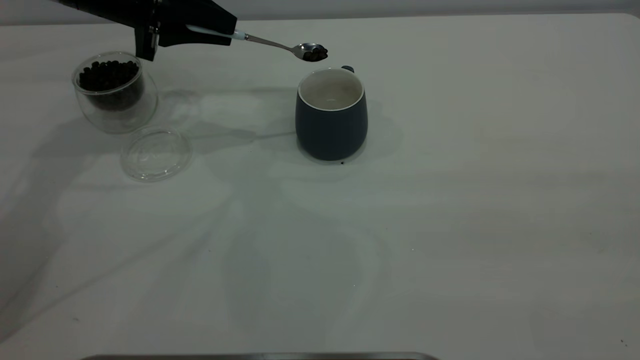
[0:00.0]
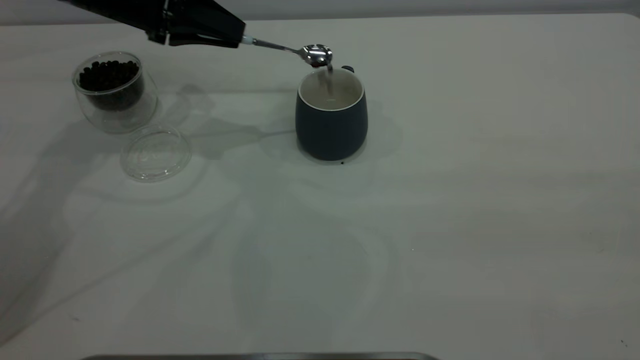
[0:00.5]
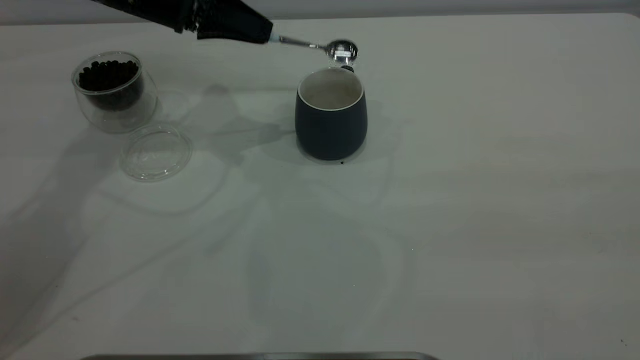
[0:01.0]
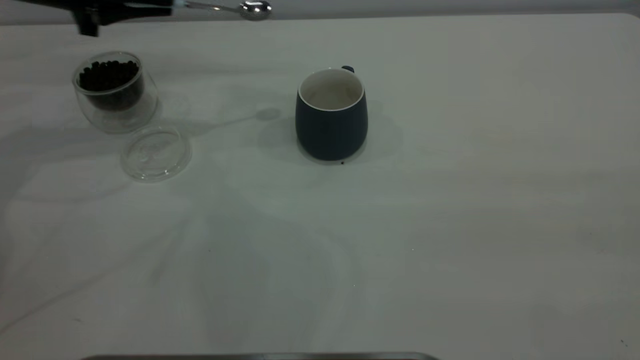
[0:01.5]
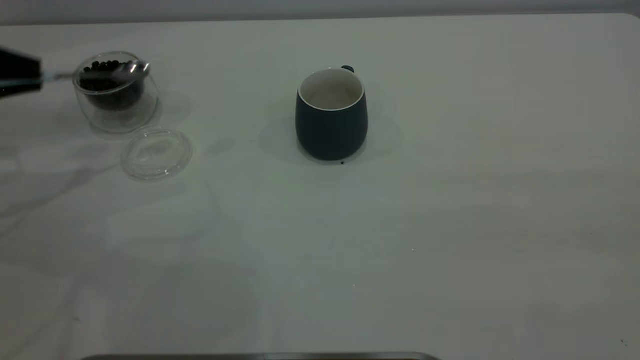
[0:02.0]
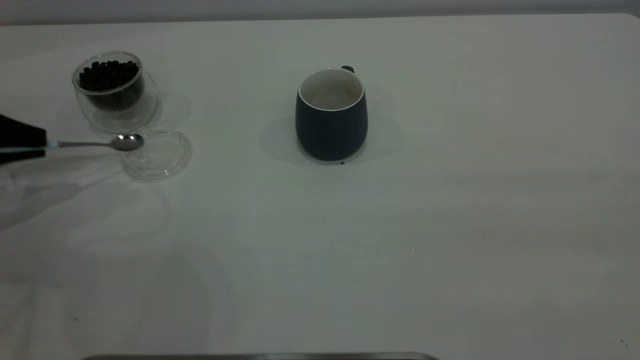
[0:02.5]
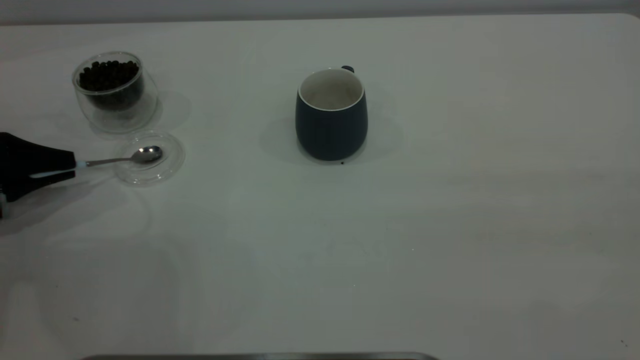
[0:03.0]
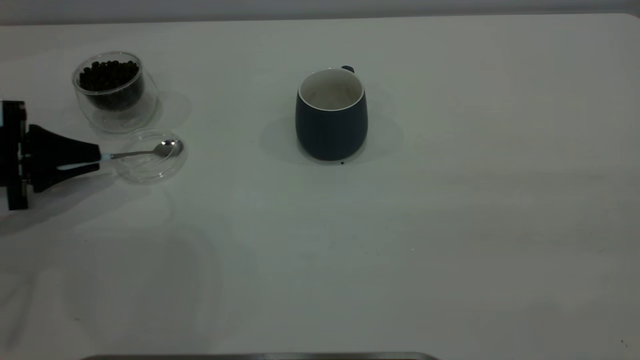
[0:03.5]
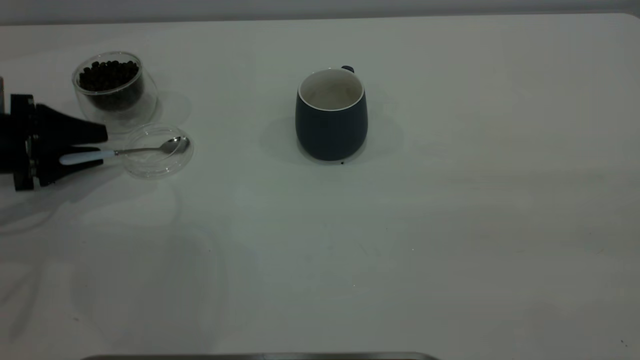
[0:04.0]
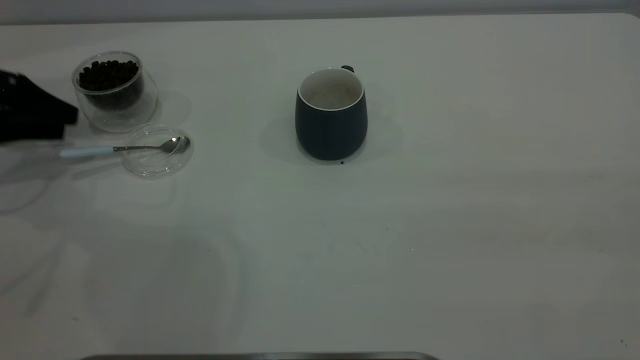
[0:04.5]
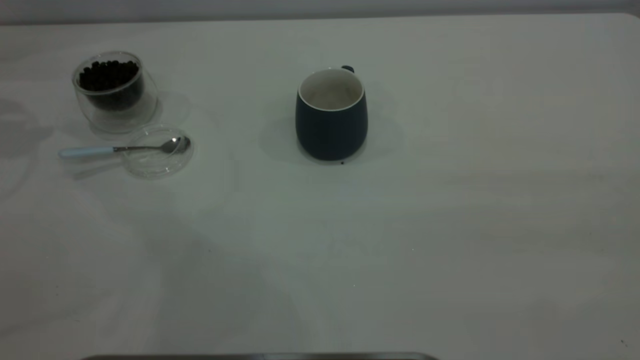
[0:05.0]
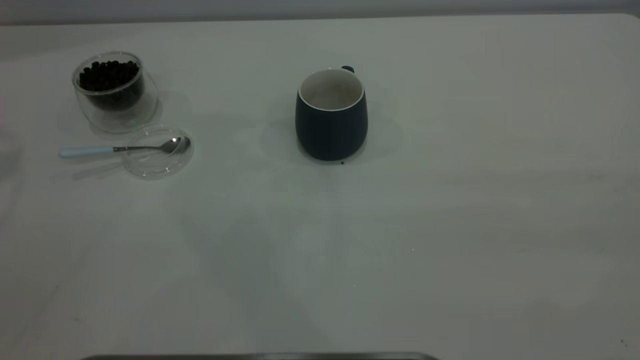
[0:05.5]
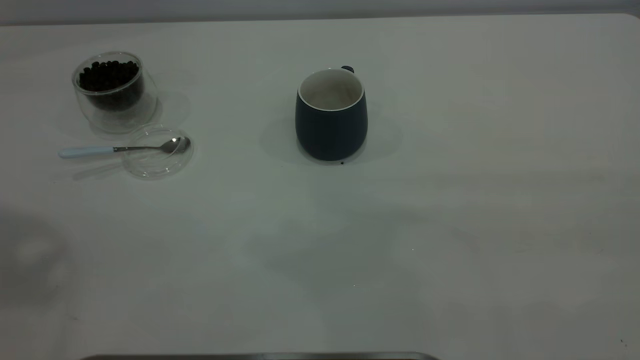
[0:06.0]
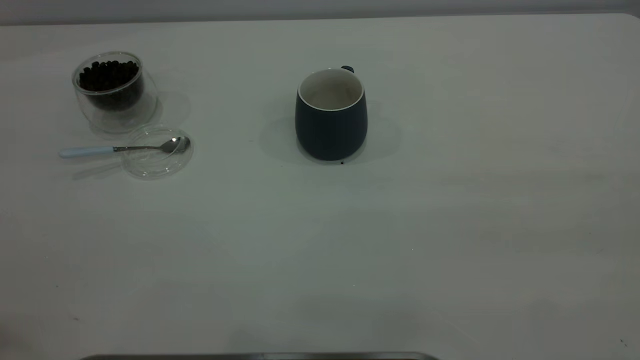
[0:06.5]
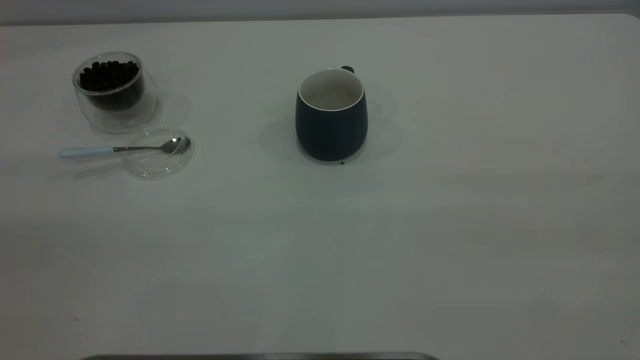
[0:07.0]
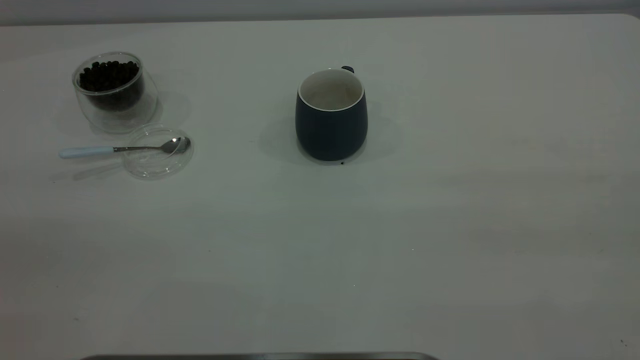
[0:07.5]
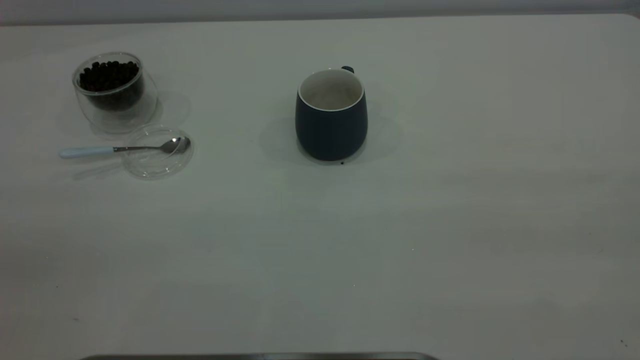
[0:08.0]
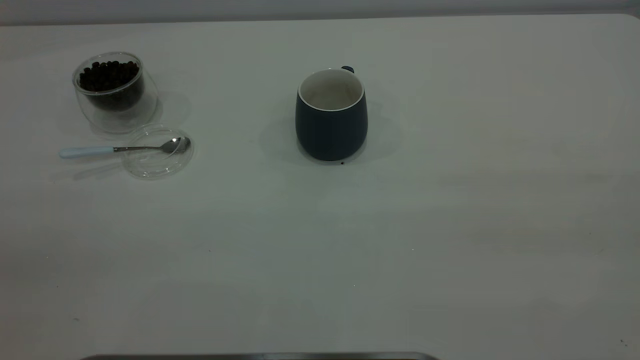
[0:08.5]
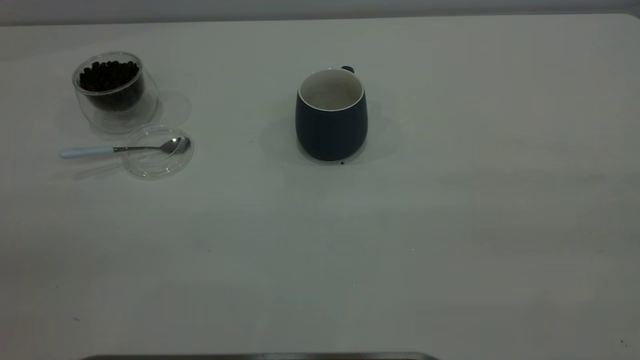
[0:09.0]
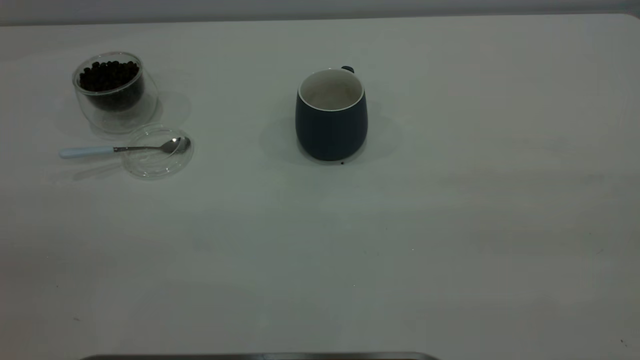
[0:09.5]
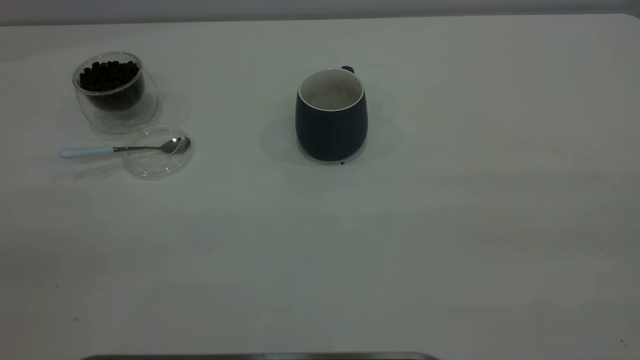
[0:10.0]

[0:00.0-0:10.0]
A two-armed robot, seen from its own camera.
Task of the whole recording: the right gripper place the grey cup in the center of the table, the left gripper take the blue spoon from the cup lid and scoop out the coffee beans from the coffee cup and put them into the grey cup, the left gripper put the spoon back into the cup lid.
Step, 0:01.5 to 0:04.5: Place the spoon back in its original place.
0:00.0 to 0:02.0: The left gripper goes approximately 20 cm to the left and backward.
0:02.0 to 0:04.0: The left gripper is displaced downward by approximately 10 cm, and opens its fingers.
0:04.0 to 0:06.0: The left gripper moves upward, about 40 cm.
0:08.0 to 0:10.0: Both grippers stay about where they are.

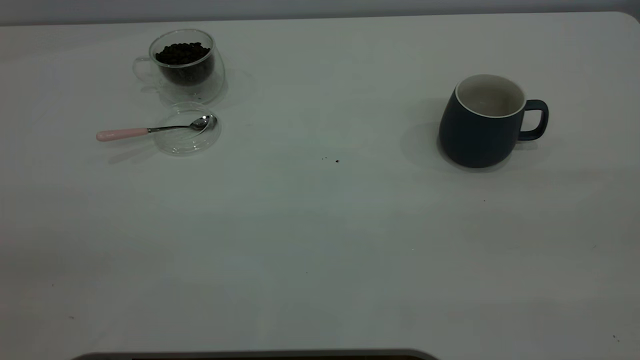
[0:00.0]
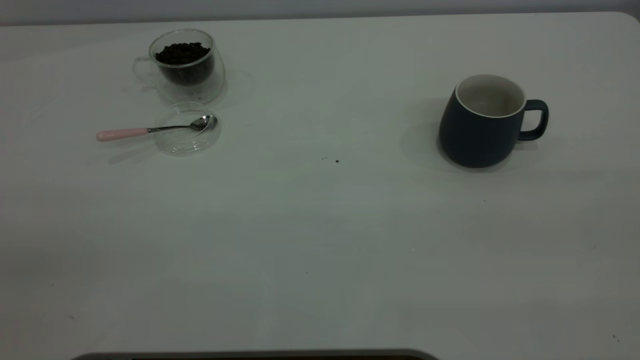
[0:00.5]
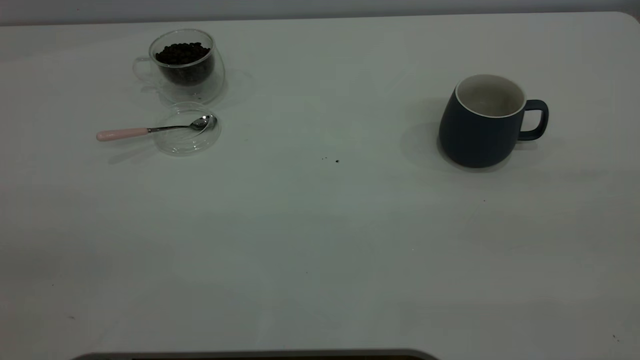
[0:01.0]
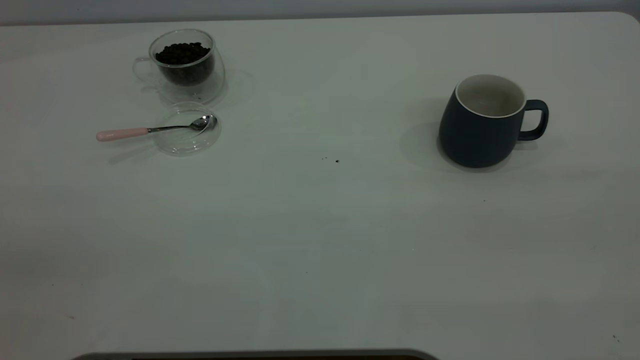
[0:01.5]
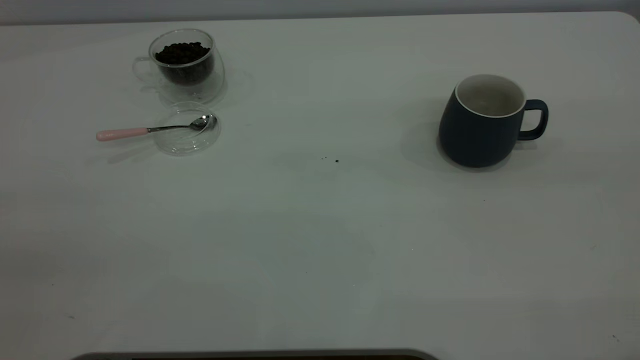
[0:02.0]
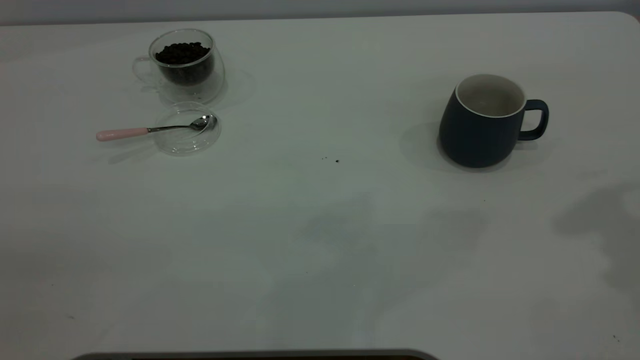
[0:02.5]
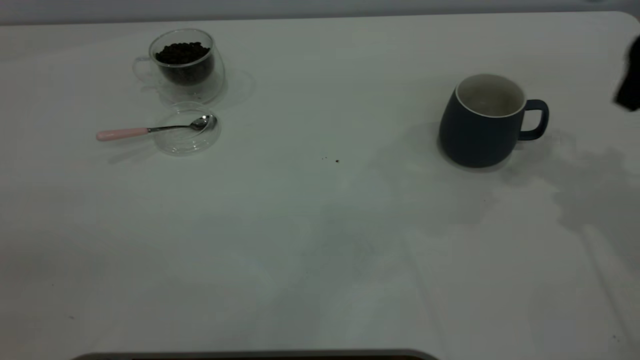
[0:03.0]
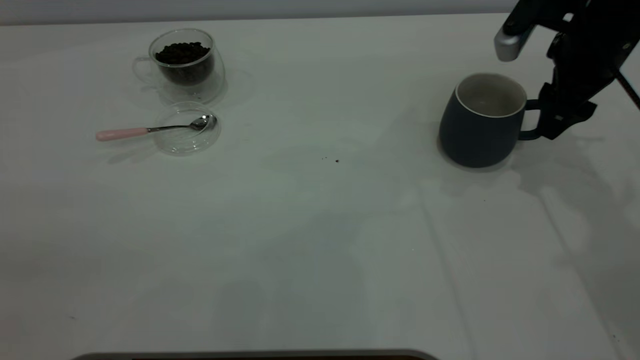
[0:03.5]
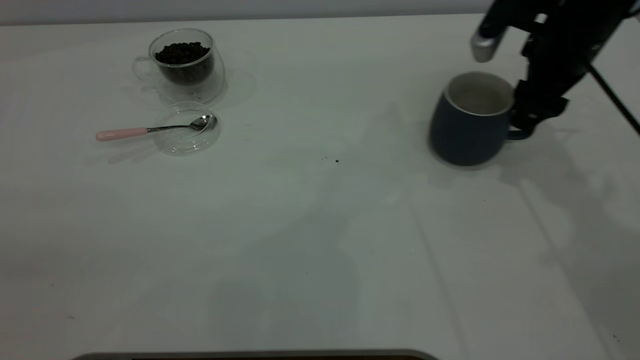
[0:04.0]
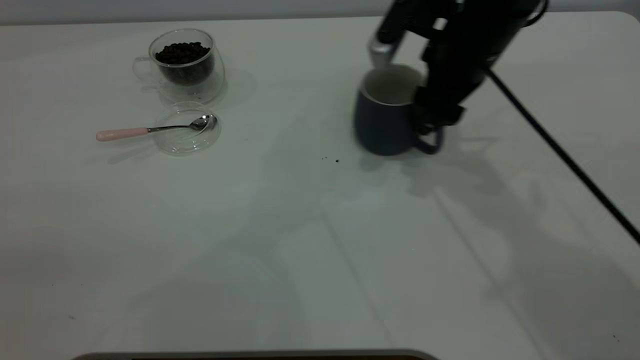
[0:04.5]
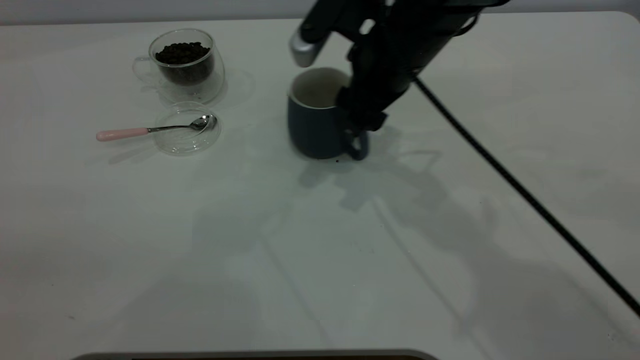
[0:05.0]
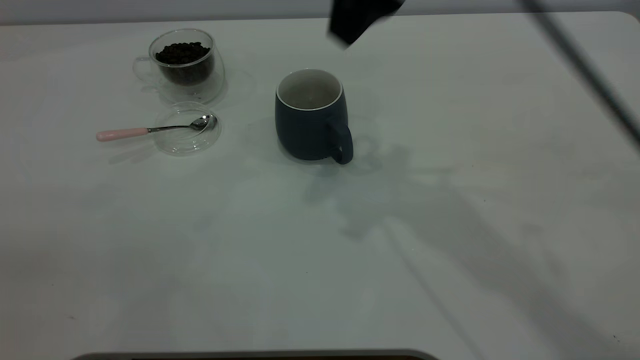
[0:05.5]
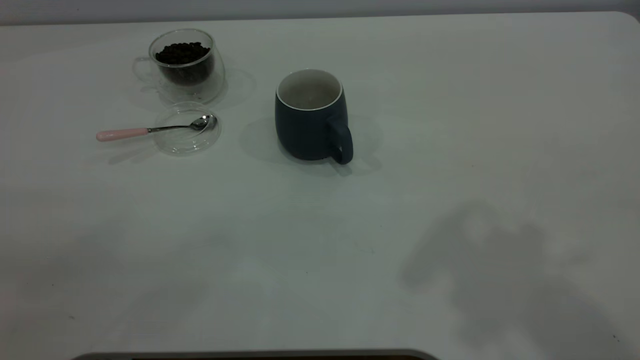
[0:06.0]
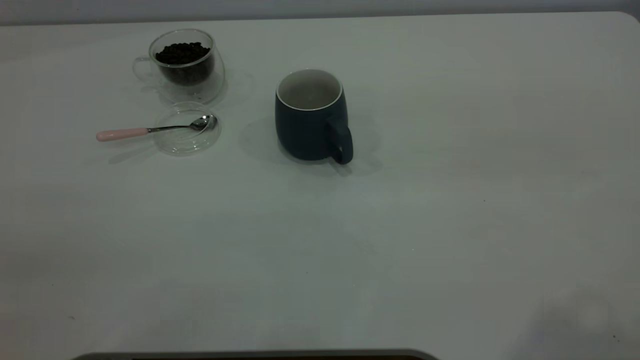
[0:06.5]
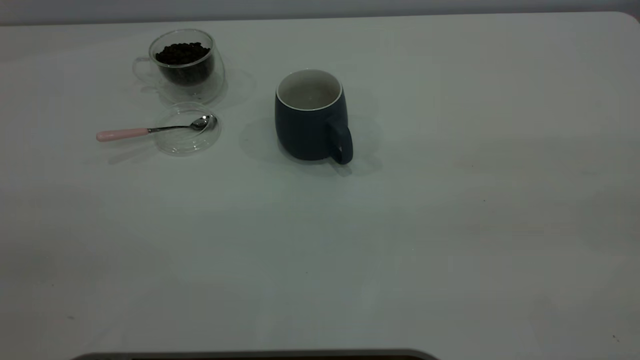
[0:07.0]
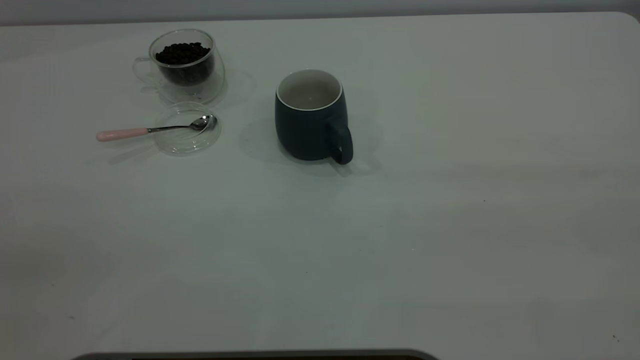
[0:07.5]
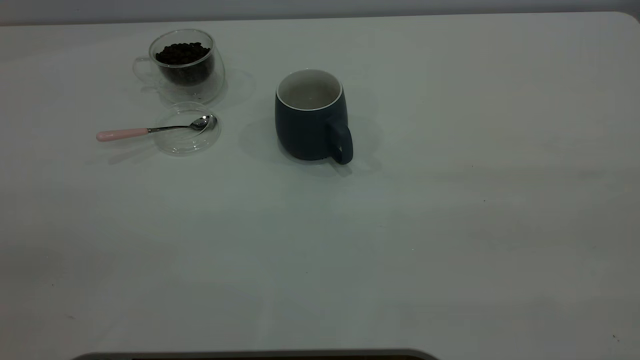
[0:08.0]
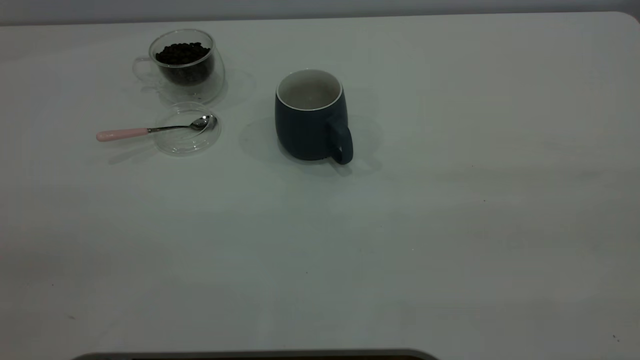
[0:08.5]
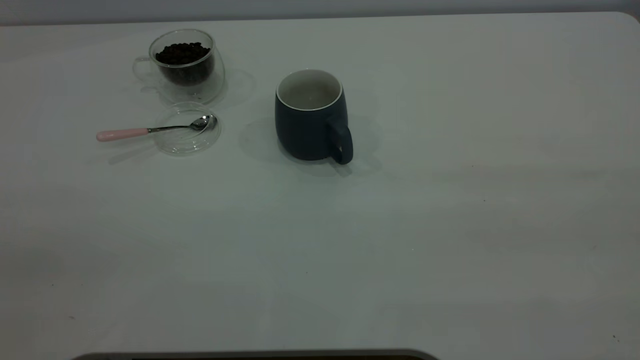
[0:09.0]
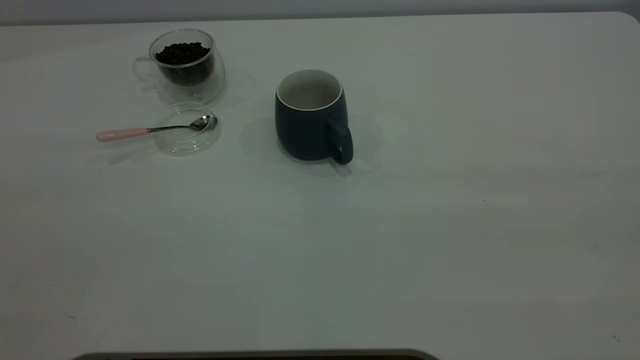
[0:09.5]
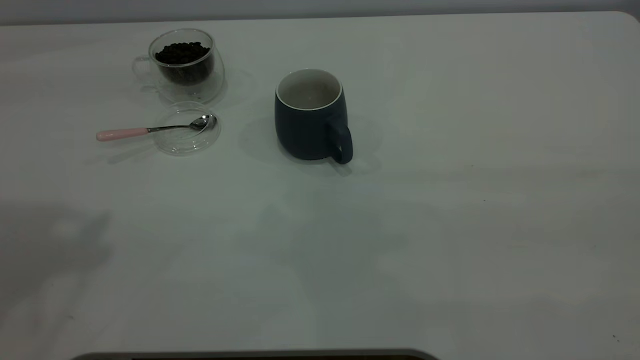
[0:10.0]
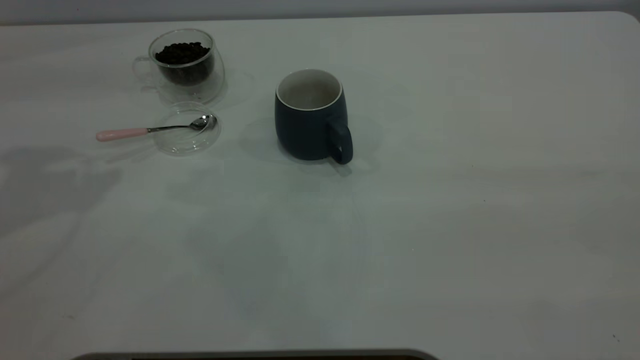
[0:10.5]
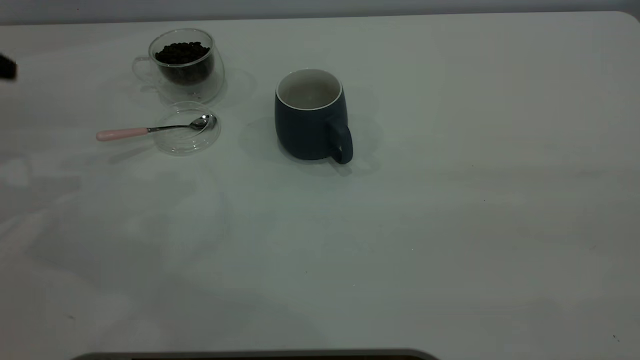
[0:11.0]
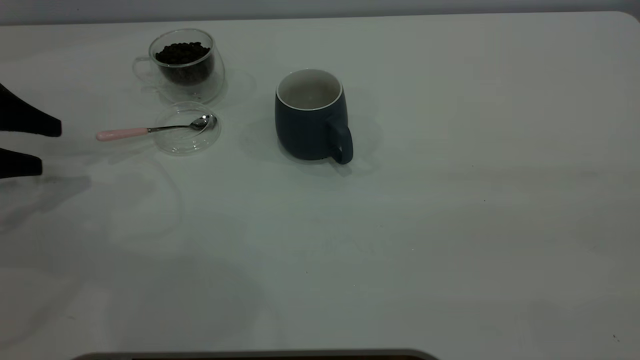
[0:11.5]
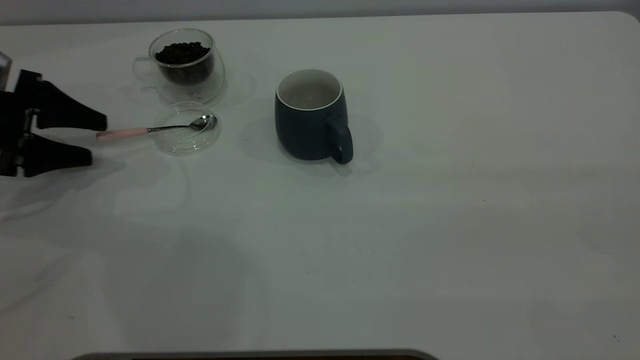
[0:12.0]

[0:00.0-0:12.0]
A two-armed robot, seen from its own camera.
Task of the whole recording: the right gripper place the grey cup in the center of the table, the left gripper take the pink spoon from the cup lid and scoop out the coffee beans from the coffee cup and put them into the grey cup, the left gripper put the spoon back into the cup lid.
Step, 0:00.0 to 0:05.0: Move the cup to the center of view.
0:02.0 to 0:04.0: The right gripper goes about 40 cm forward and downward.
0:04.0 to 0:06.0: The right gripper goes some 40 cm upward and backward.
0:10.0 to 0:12.0: The left gripper moves downward, some 35 cm.
